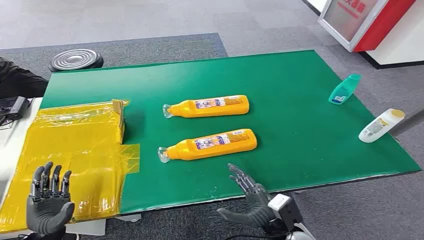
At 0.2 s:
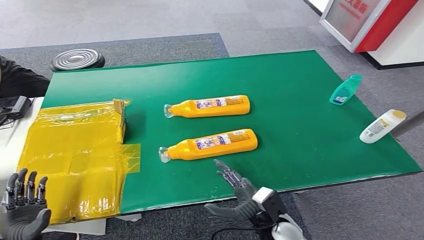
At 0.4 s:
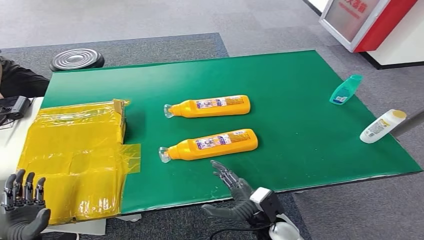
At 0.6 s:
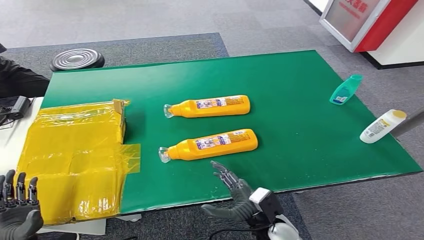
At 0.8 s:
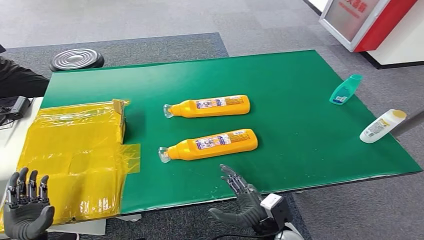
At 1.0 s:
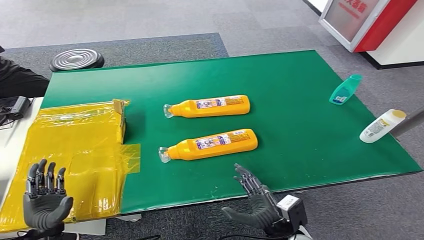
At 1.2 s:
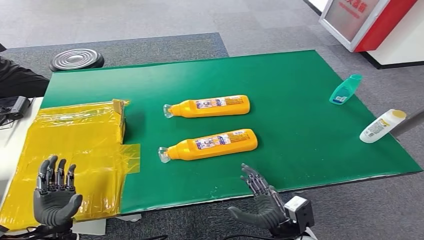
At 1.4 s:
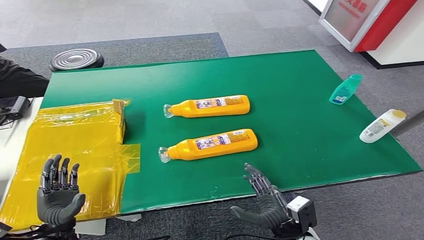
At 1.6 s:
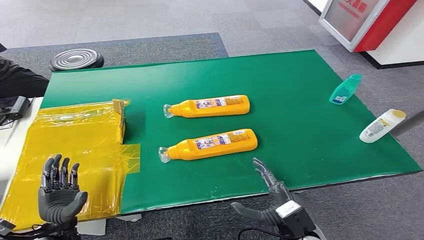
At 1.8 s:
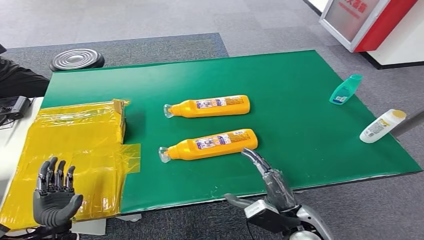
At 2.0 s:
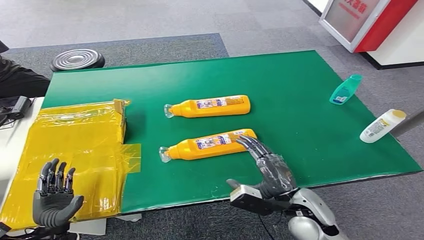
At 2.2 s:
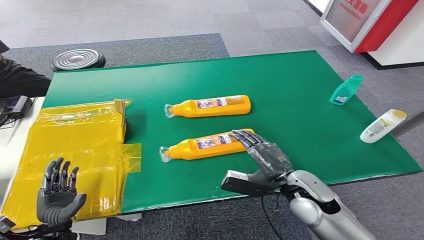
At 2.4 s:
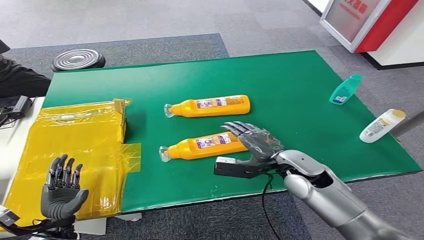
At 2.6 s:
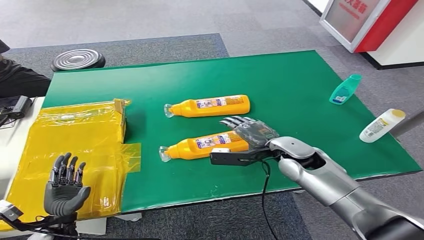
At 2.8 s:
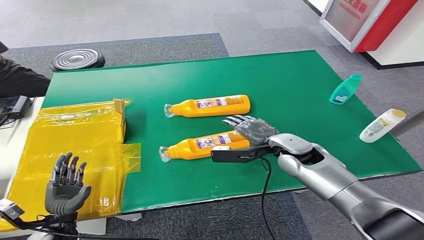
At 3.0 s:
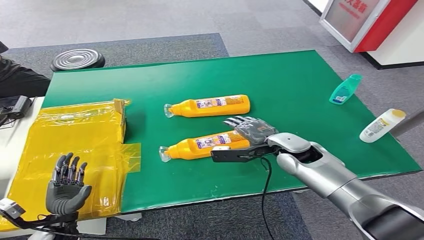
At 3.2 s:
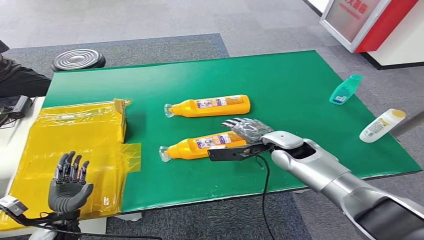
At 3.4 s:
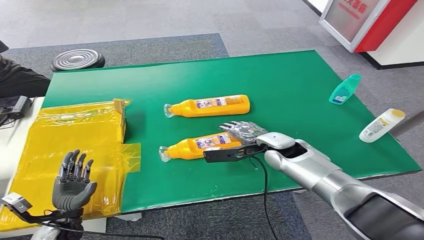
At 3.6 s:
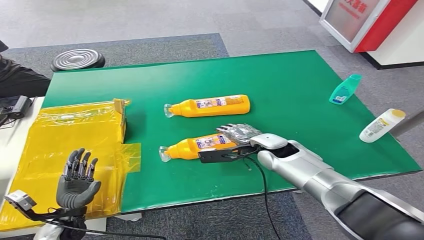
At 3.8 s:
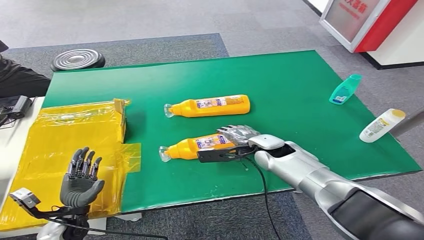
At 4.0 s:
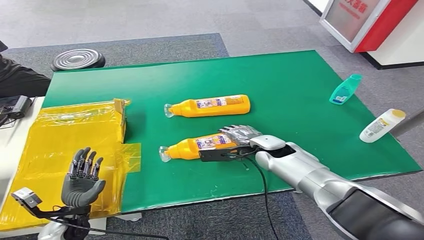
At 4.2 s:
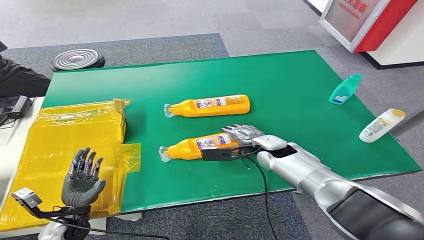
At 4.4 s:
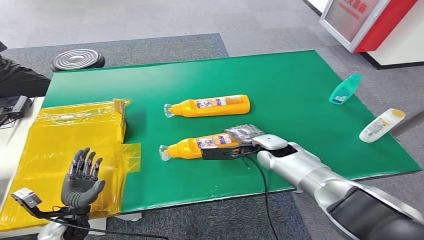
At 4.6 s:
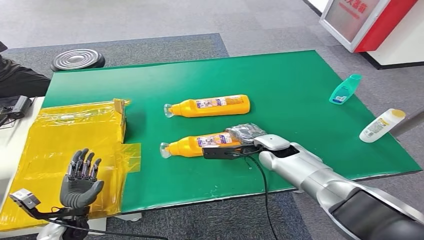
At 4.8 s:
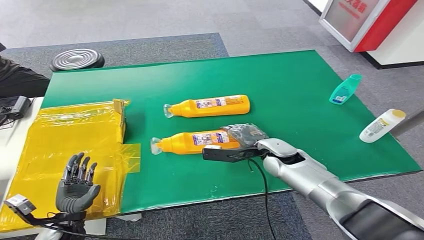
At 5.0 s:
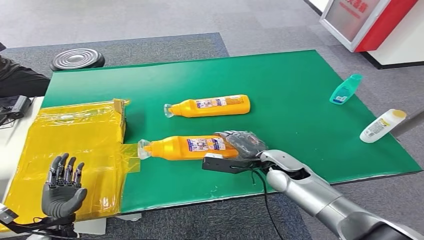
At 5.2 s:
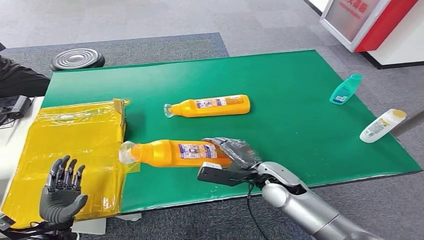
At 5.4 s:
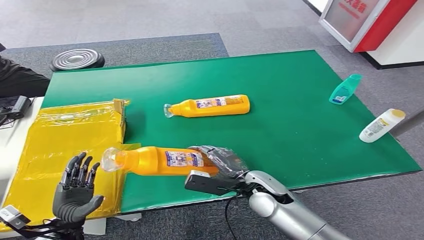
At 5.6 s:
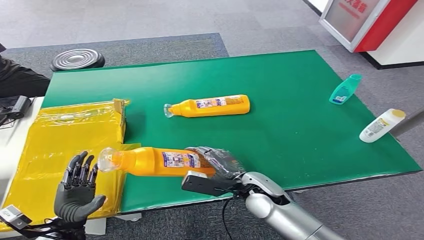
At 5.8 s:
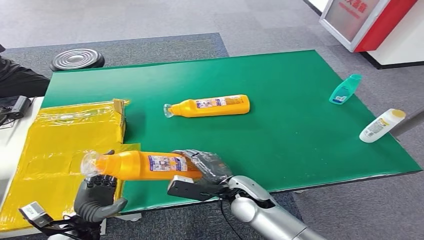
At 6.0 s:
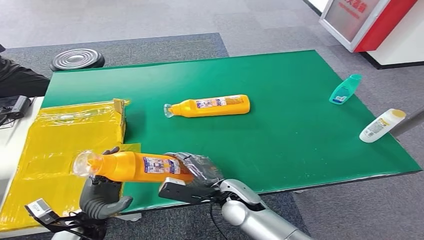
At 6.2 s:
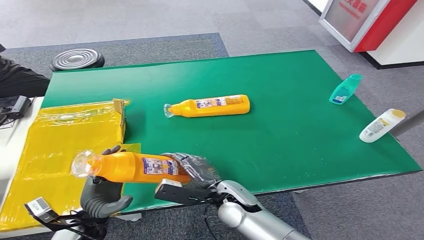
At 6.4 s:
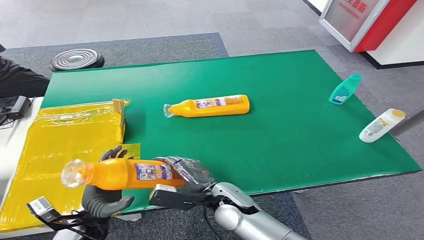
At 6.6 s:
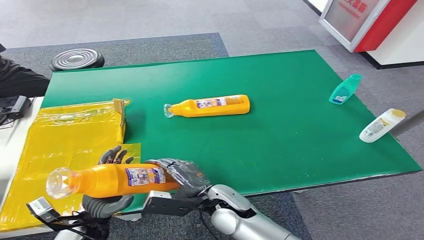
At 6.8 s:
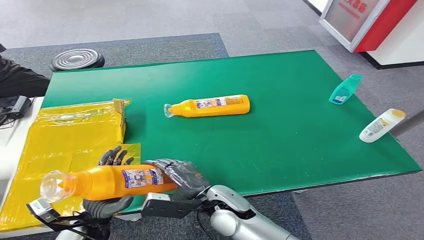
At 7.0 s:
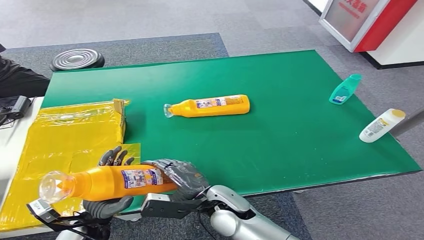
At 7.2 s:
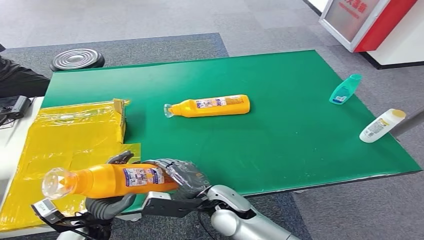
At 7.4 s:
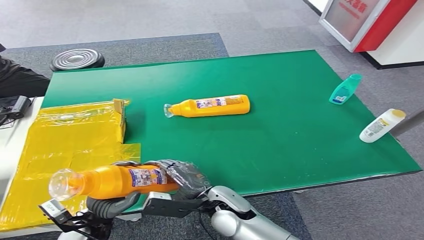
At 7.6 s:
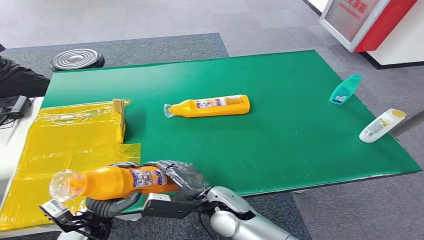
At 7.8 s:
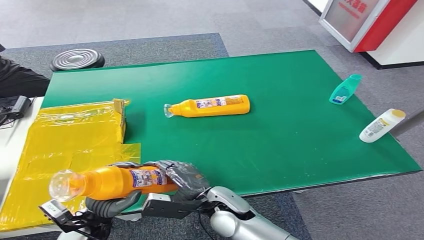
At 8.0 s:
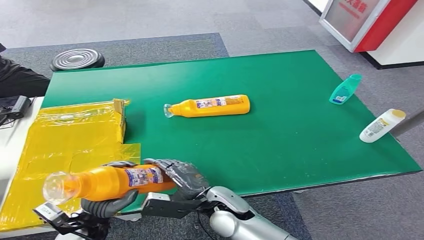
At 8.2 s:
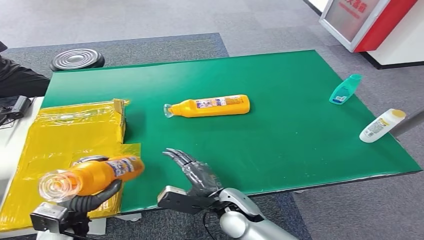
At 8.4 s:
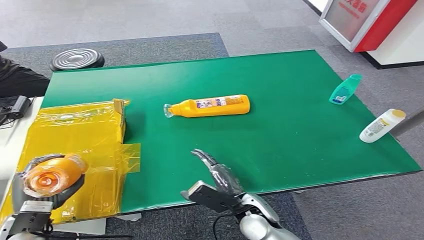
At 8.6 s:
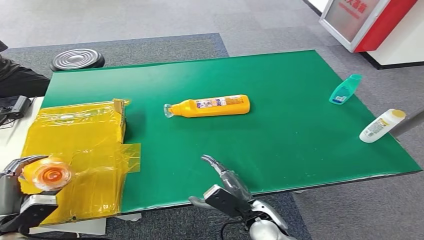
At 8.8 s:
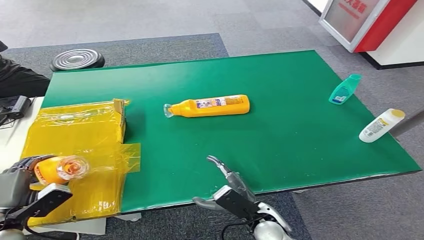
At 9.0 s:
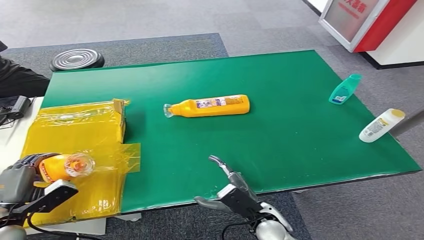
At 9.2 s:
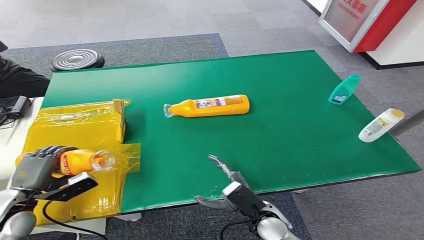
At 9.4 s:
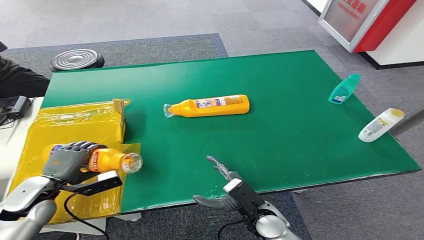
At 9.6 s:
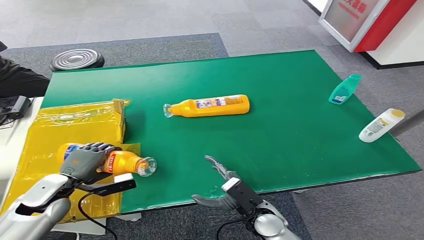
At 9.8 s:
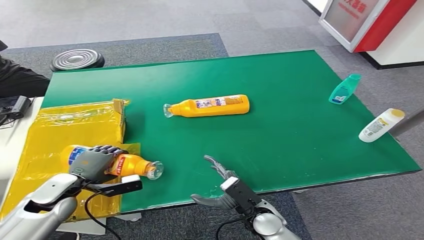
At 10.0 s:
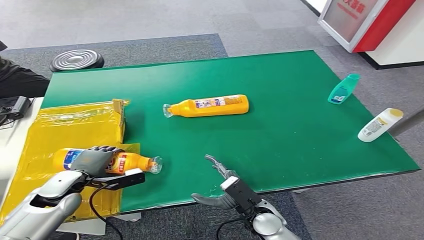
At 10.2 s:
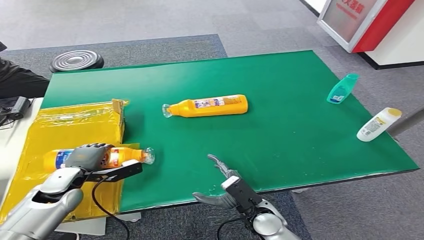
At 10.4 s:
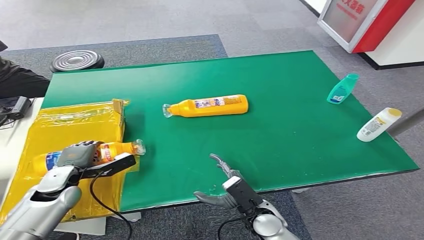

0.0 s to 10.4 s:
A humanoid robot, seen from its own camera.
Step, 0.0 to 6.0 s: Pick up the bottle from the table.
Step, 6.2 to 10.4 s: Turn the bottle to the front side.
1.4 to 3.0 s: The right hand travels forward and upward by roughly 25 cm.
3.0 to 4.4 s: The right hand changes place by roughly 5 cm.
4.4 to 6.0 s: The left hand travels to the right by approximately 5 cm. Meanwhile the right hand moves backward and to the left, roughly 15 cm.
6.0 to 7.4 s: The hands move only a little.
7.4 to 9.0 s: The right hand moves to the right and downward, roughly 10 cm. Meanwhile the left hand is displaced to the left by about 15 cm.
9.0 to 10.4 s: The left hand travels forward and to the right by about 15 cm.
